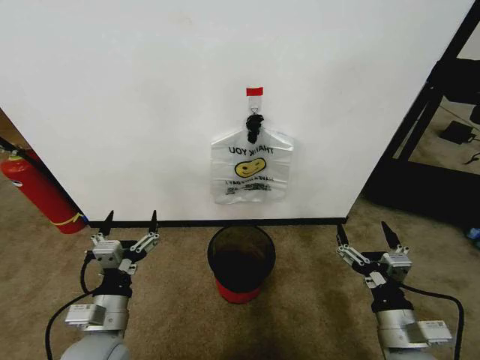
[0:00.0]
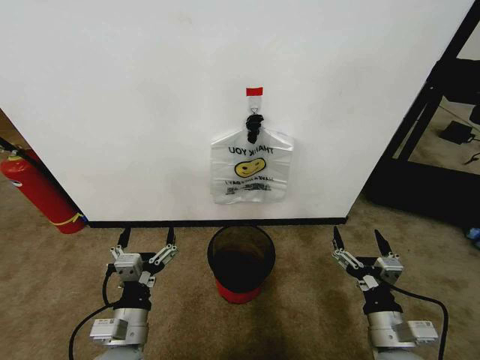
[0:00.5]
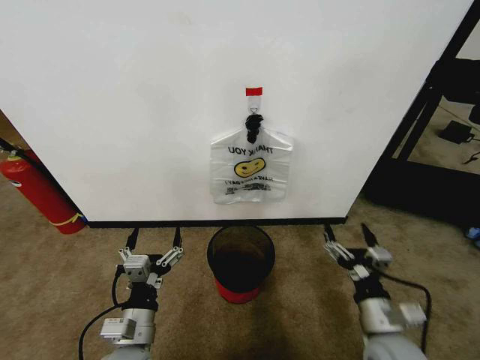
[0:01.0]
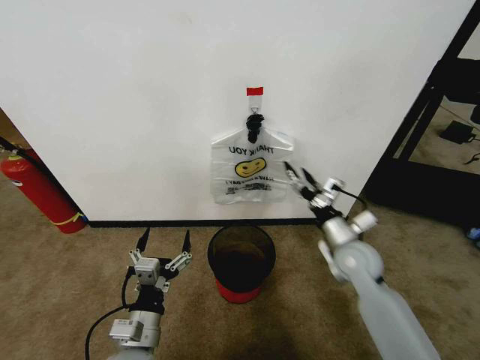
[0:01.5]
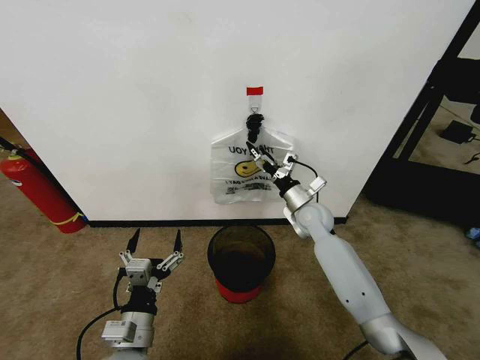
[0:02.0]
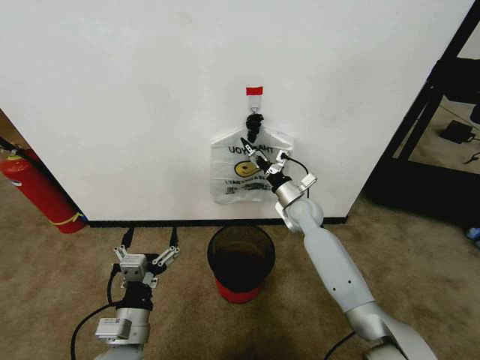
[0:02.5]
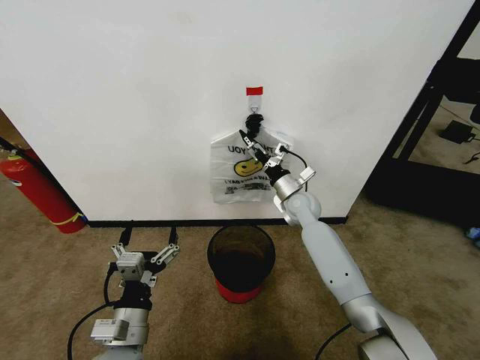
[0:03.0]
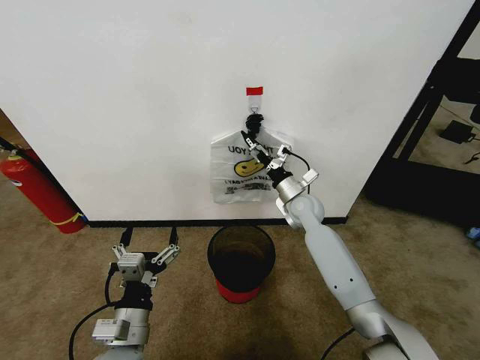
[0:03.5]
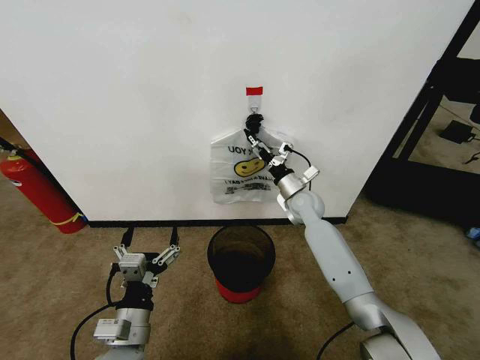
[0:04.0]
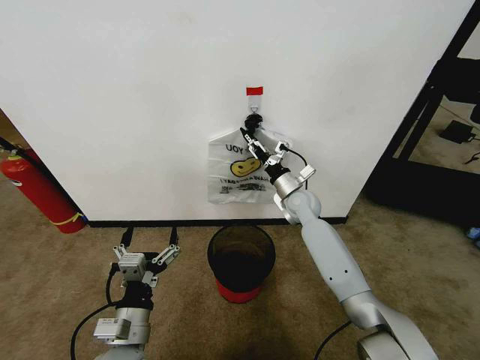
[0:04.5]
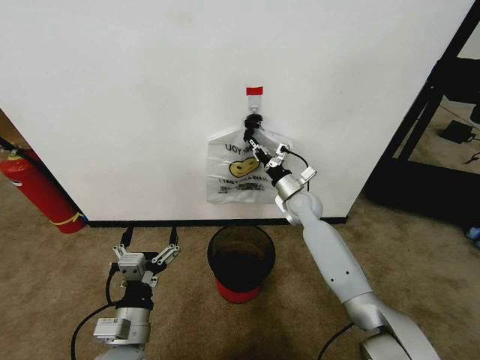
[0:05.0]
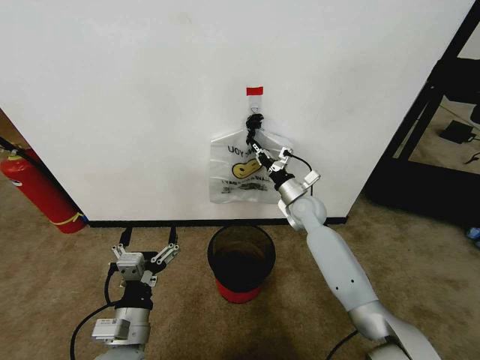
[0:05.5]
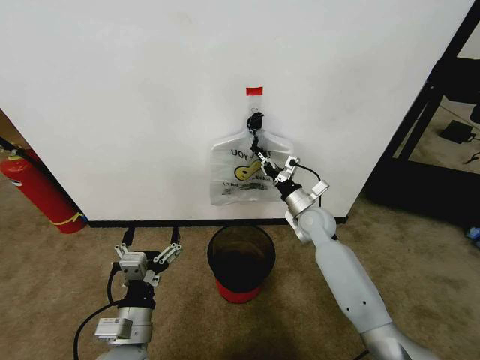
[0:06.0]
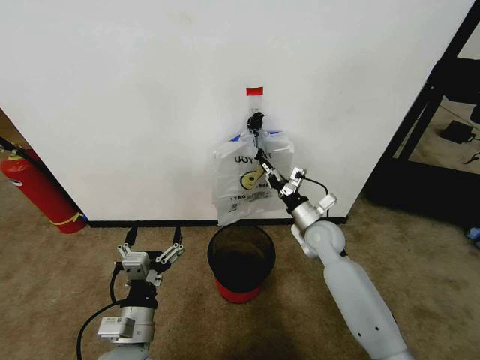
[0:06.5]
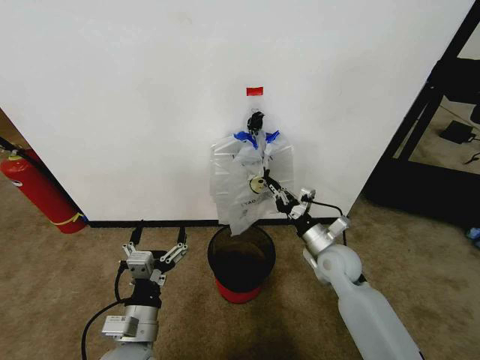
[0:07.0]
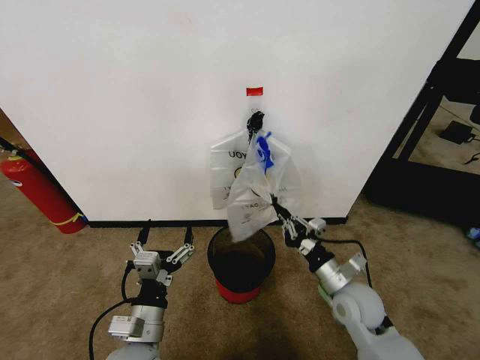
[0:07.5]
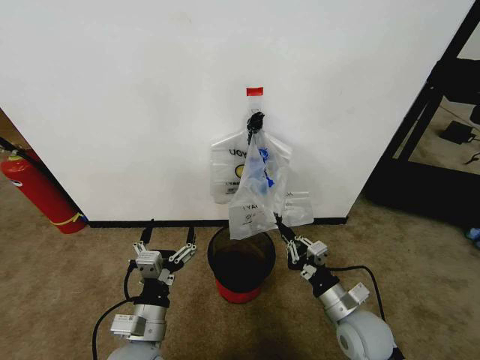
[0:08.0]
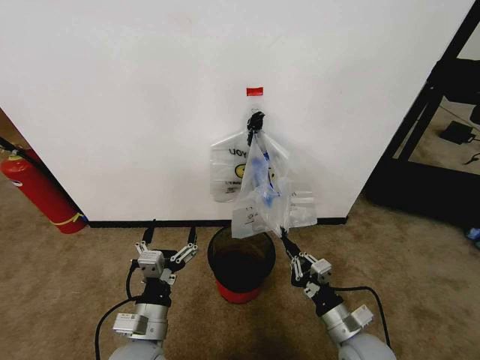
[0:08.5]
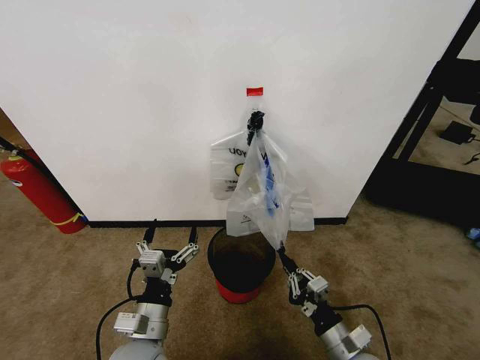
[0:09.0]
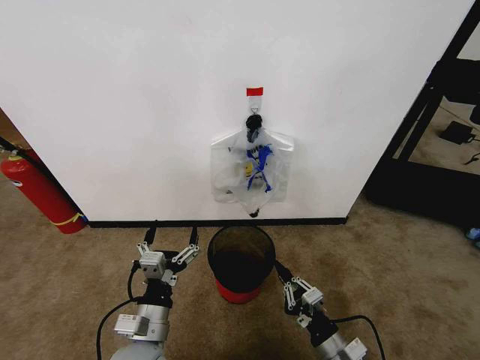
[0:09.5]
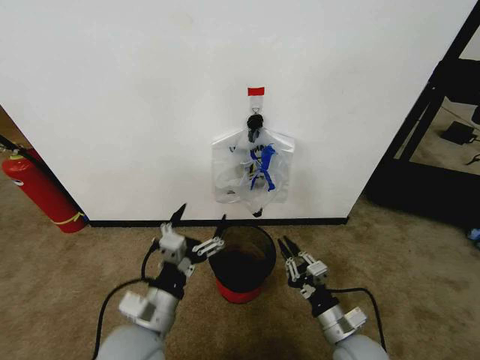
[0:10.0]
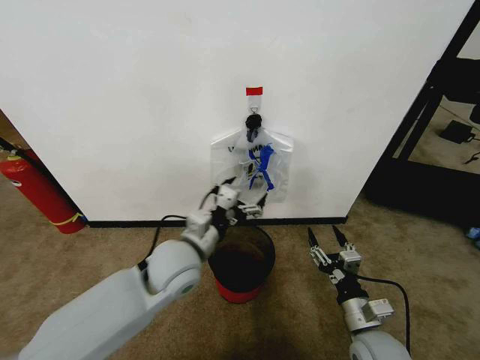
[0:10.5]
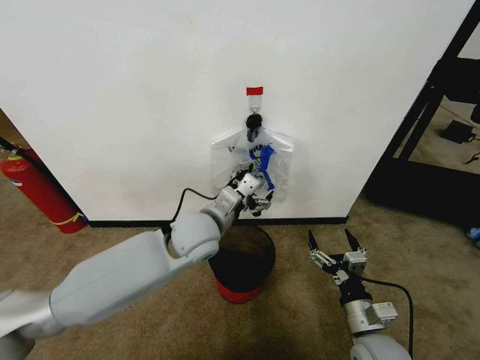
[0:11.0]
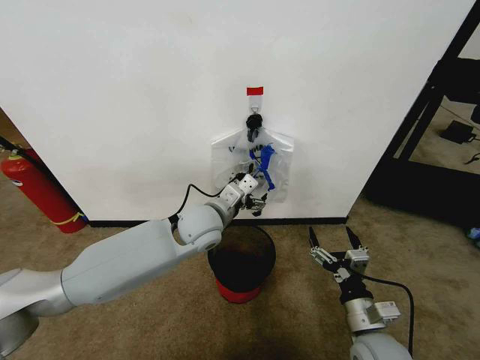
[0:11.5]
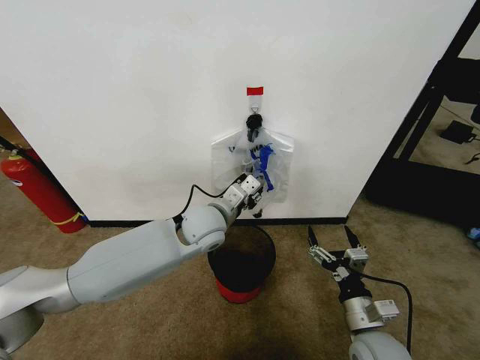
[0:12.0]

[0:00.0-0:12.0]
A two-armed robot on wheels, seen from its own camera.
Task of the whole recording: Pick up the garbage bag from the wall and place it over the trash bin.
0:02.0 to 0:04.0: The grippers move only a little.
0:04.0 to 0:06.0: The right gripper heads backward, covering some 5 cm, and closes.
0:06.0 to 0:08.0: The right gripper goes about 25 cm backward.
0:08.0 to 0:10.0: The left gripper heads upward, covering some 5 cm.
0:10.0 to 0:12.0: The right gripper opens up; the left gripper heads forward and to the right, covering roughly 25 cm, and closes.

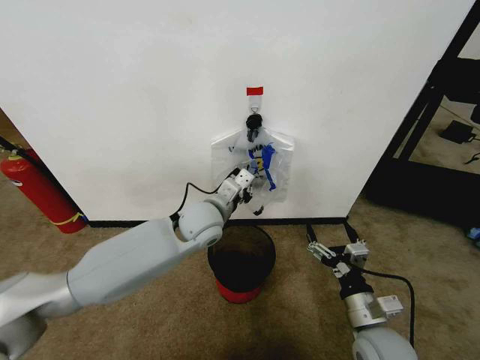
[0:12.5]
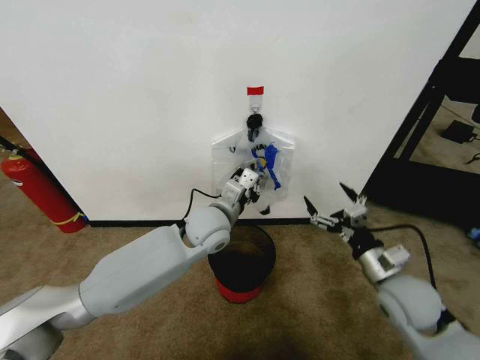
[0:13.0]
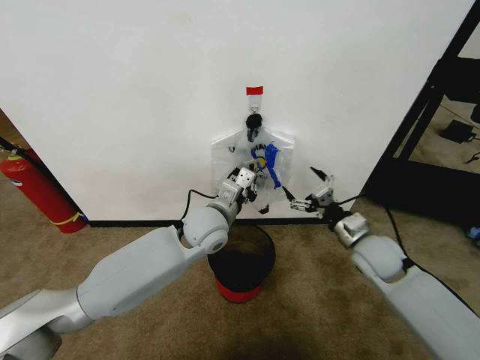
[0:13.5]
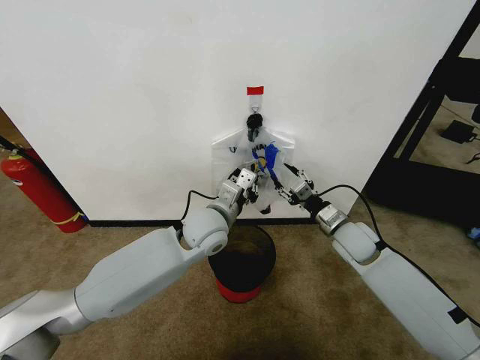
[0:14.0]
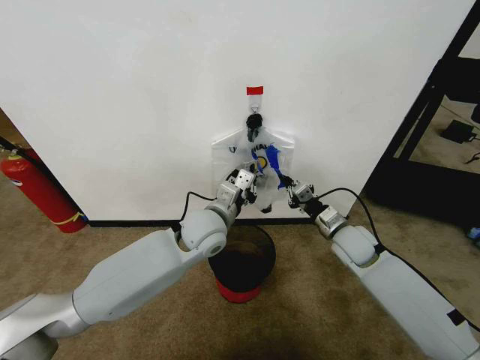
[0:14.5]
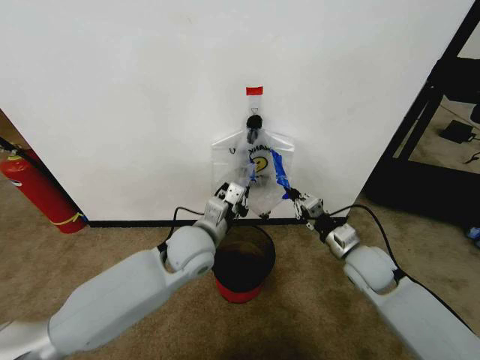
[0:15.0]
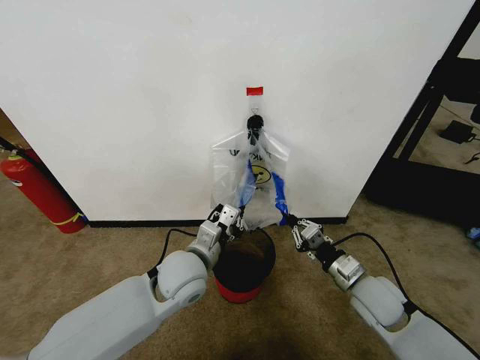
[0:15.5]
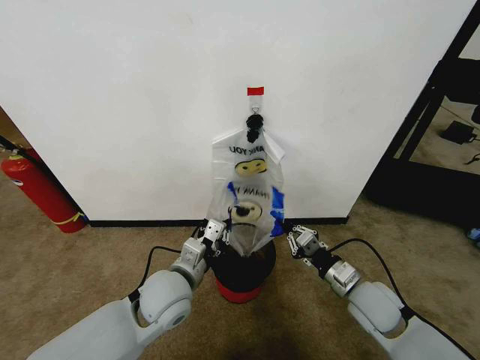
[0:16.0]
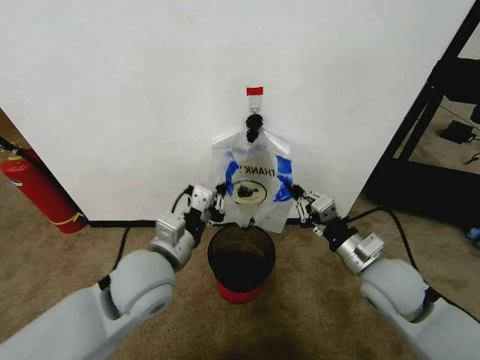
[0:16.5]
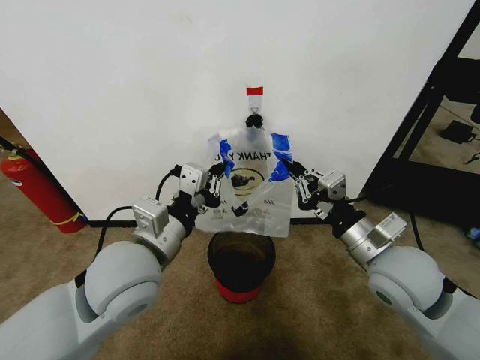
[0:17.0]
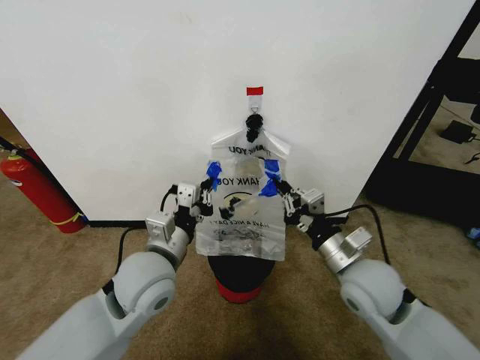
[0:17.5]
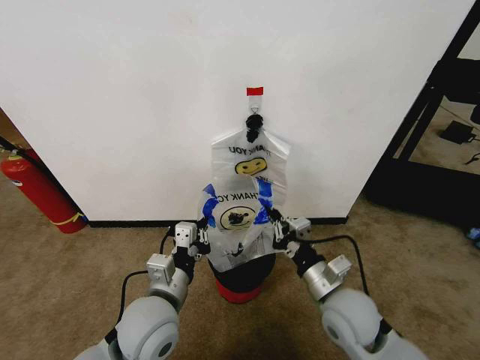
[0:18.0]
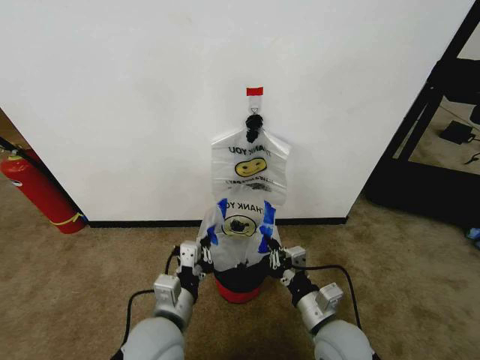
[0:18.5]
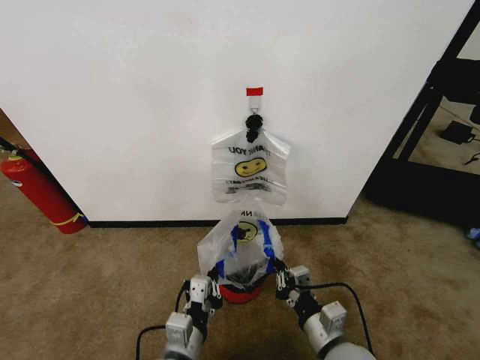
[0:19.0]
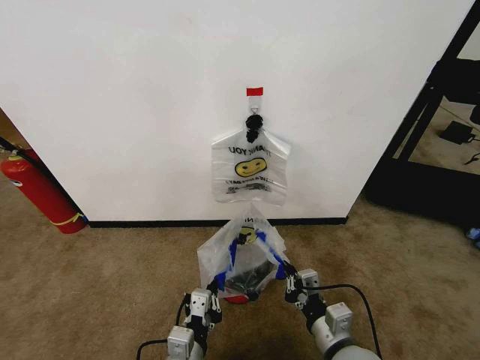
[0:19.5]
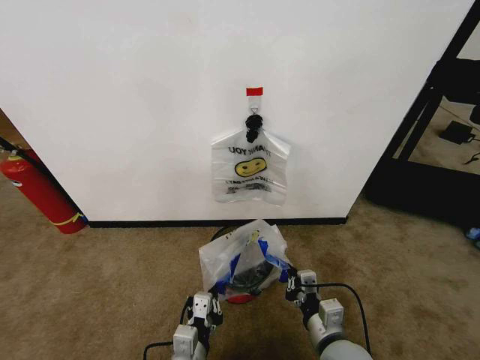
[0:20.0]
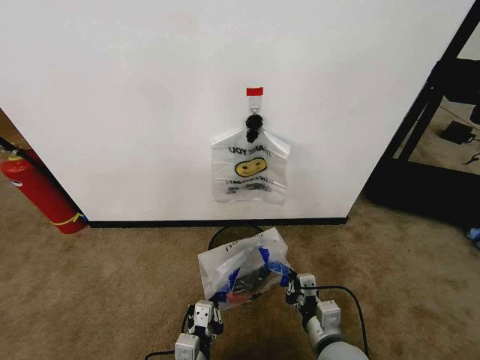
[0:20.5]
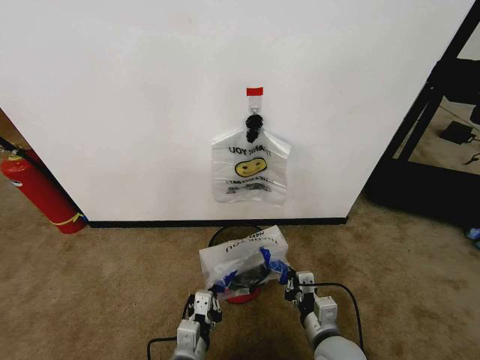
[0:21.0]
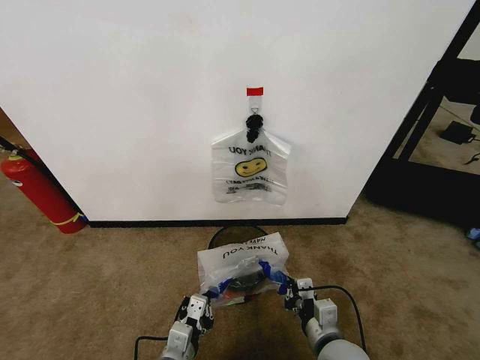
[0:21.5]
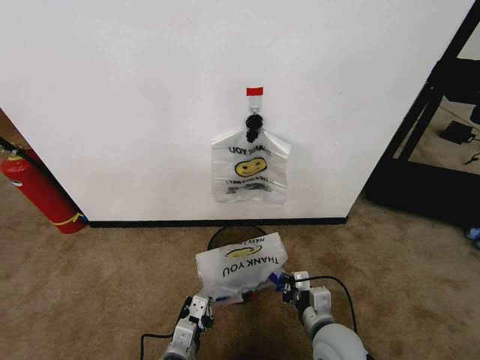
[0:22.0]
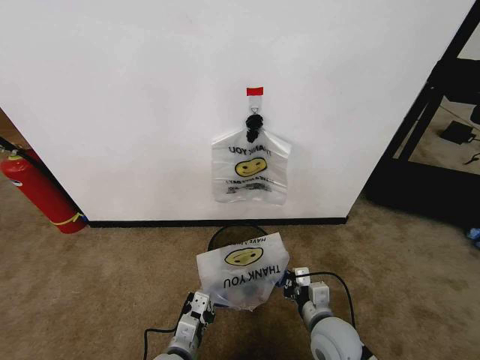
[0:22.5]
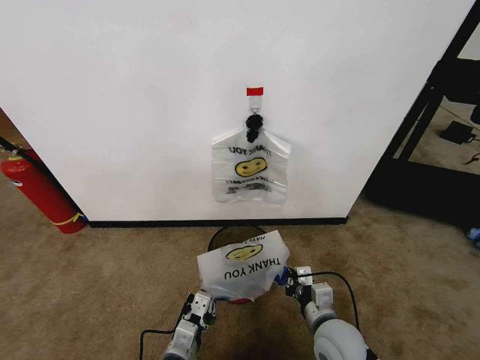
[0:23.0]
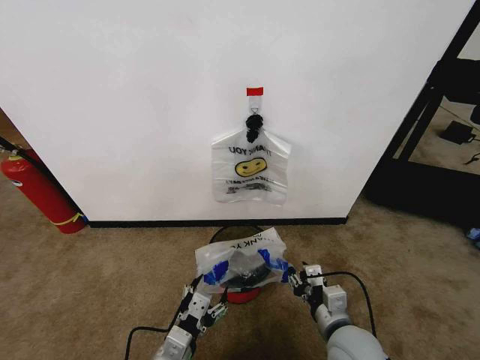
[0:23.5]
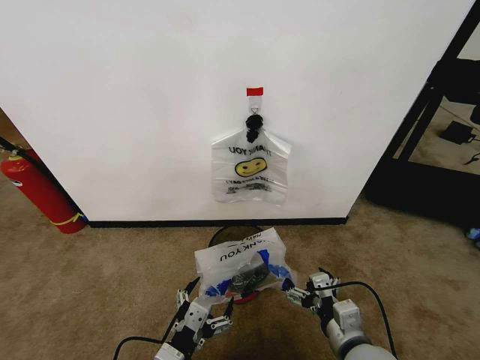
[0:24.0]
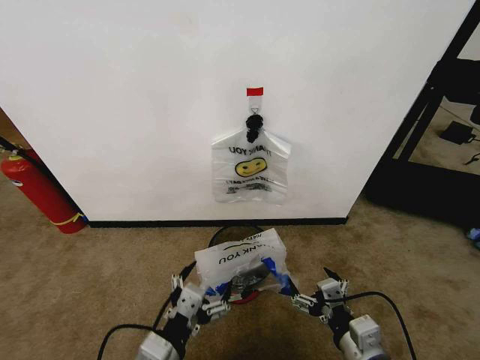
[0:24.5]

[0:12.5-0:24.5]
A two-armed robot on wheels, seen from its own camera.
Task of the whole recording: Pick up the garbage bag from the wall and place it over the trash bin.
0:12.5 to 0:14.5: The right gripper goes approximately 20 cm forward, and closes.
0:14.5 to 0:16.5: The right gripper travels backward by some 15 cm. Meanwhile the left gripper is displaced backward and to the left by some 15 cm.
0:16.5 to 0:18.5: The left gripper heads downward and backward, covering approximately 10 cm. The right gripper heads to the left, backward and downward, covering some 15 cm.
0:18.5 to 0:20.5: The left gripper is displaced downward and backward by roughly 10 cm.
0:20.5 to 0:22.5: The left gripper changes place by roughly 5 cm, while the right gripper changes place by approximately 5 cm.
0:22.5 to 0:24.5: The left gripper moves upward and backward, approximately 15 cm, and opens up. Meanwhile the right gripper shifts roughly 10 cm backward and upward, and opens.

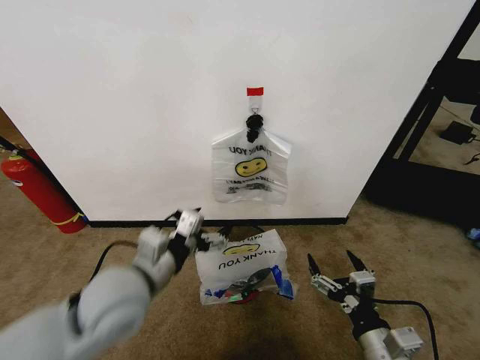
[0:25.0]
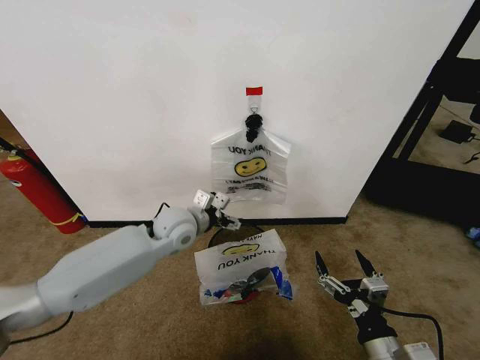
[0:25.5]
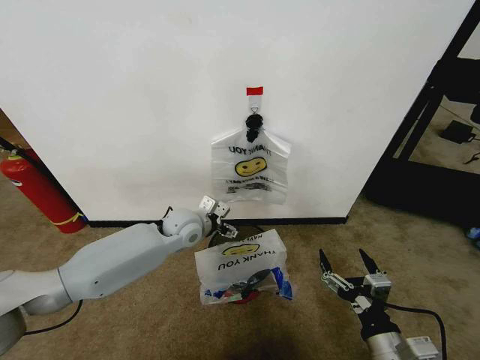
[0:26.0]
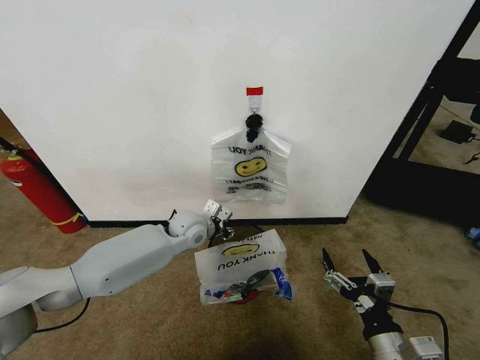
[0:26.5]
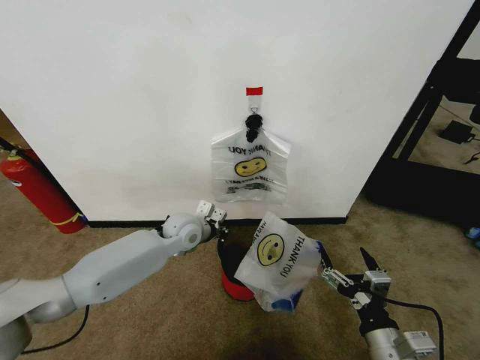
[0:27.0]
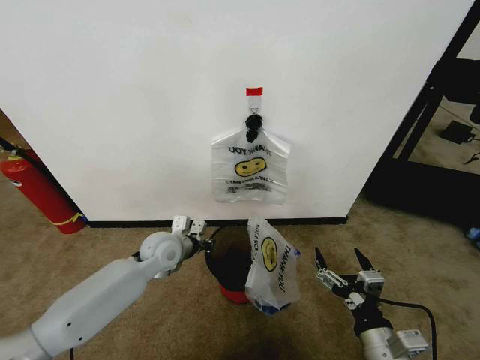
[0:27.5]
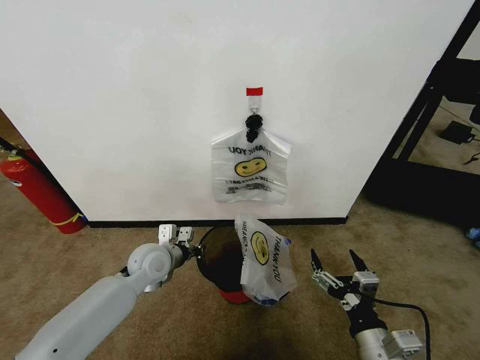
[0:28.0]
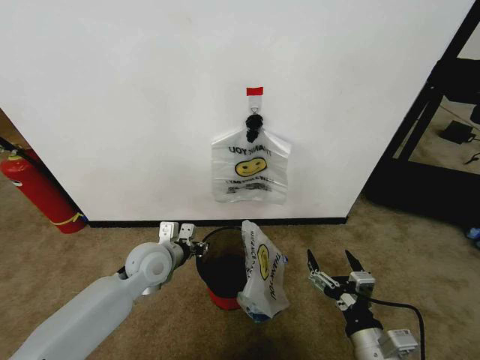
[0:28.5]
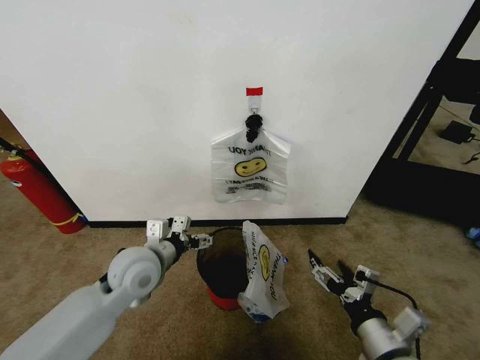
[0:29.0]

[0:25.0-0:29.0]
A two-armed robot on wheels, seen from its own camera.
Task of the whole recording: Pick up the garbage bag from the wall and place it over the trash bin.
0:25.0 to 0:27.0: The left gripper is displaced forward and downward by approximately 25 cm, and closes its fingers.
0:27.0 to 0:29.0: The left gripper is displaced backward and to the left by some 15 cm, and opens.
